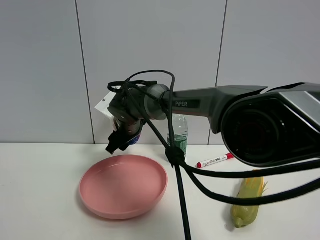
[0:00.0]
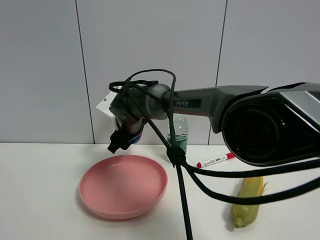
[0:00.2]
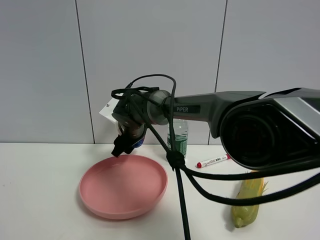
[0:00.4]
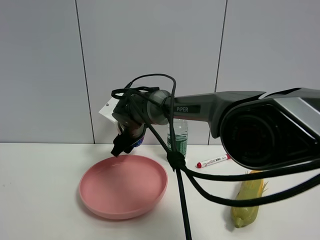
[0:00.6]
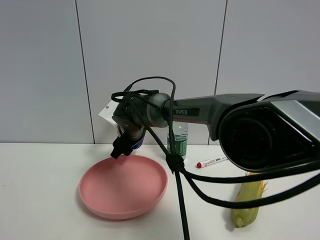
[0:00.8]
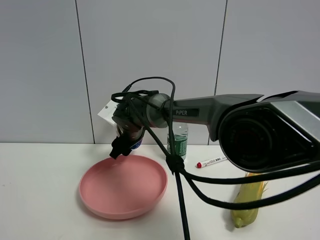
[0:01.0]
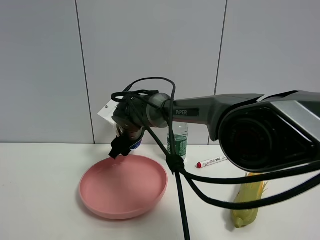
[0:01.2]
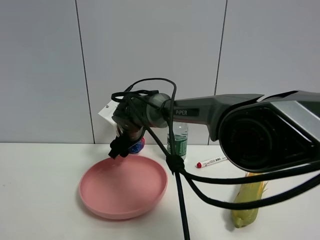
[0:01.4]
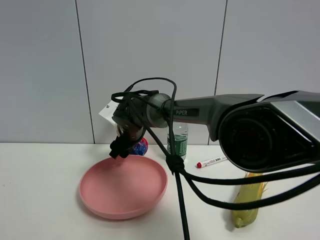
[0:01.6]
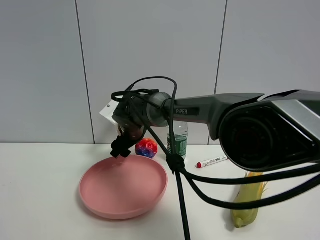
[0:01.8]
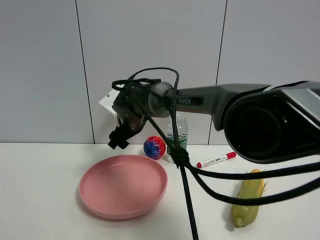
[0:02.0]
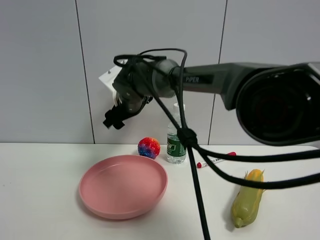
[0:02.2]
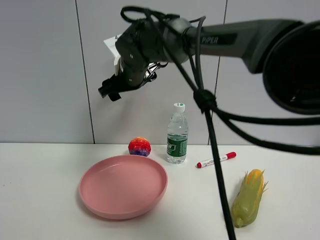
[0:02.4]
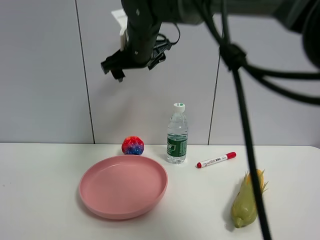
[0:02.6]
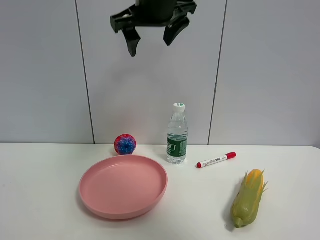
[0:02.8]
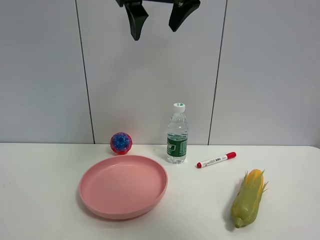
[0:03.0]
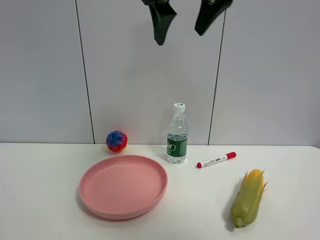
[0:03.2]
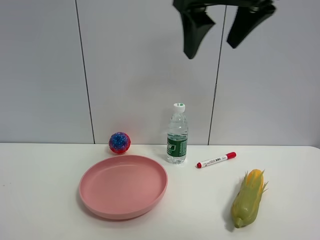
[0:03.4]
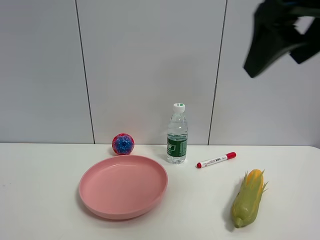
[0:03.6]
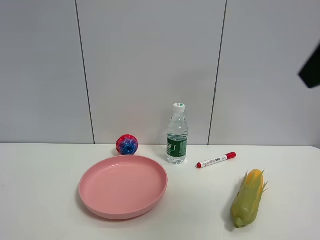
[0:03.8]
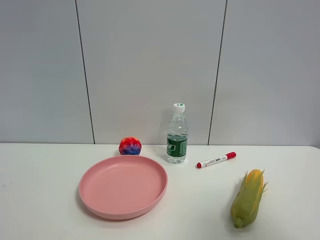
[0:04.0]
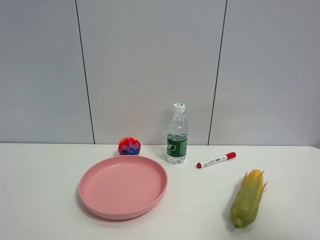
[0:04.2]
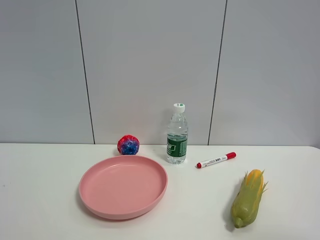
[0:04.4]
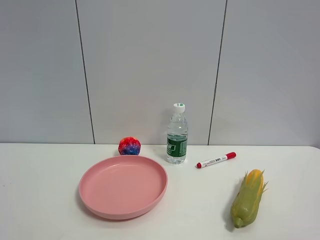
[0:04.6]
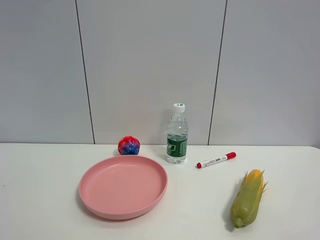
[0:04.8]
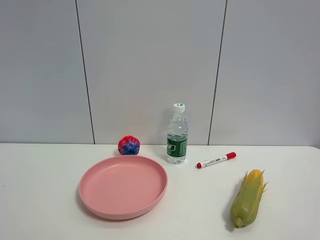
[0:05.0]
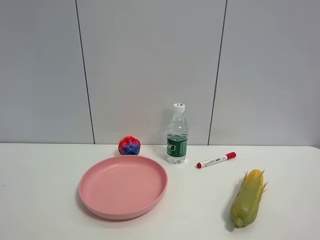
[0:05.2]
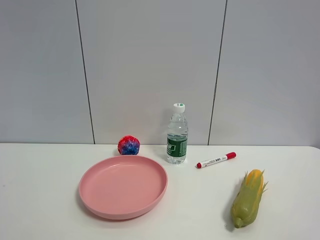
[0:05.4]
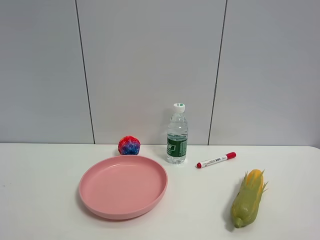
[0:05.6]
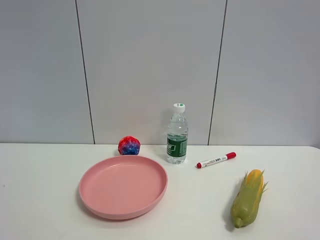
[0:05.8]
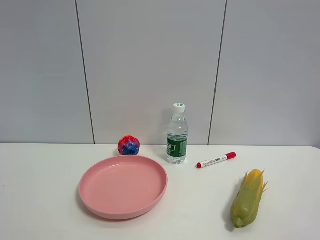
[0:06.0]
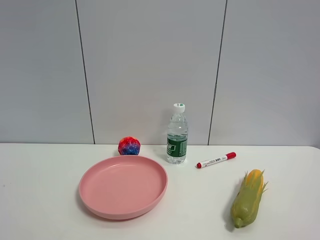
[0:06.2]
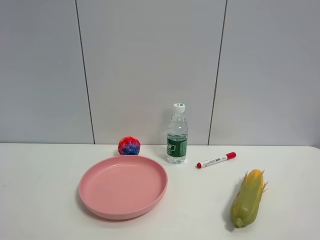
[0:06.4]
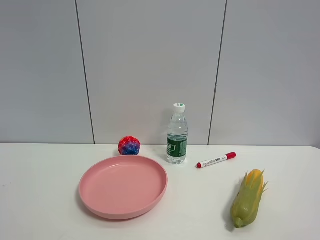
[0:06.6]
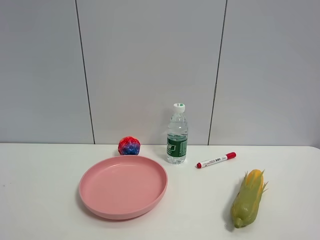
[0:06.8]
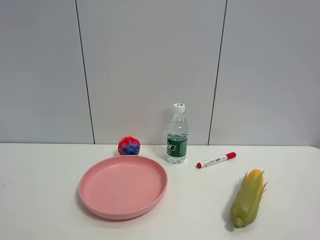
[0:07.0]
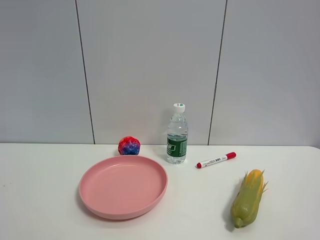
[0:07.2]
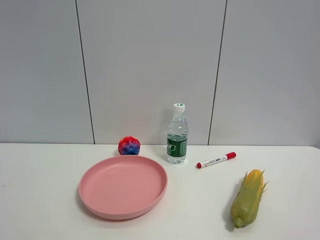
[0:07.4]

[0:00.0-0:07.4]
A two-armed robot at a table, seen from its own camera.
Task of the whole recording: the gripper move the object.
Step, 0:00.0 to 0:02.2: Place the colorful ball on the table with the right gripper.
0:00.0 to 0:01.4: The right gripper opens up.
0:01.4 to 0:03.0: The right gripper travels upward by about 30 cm.
0:03.0 to 0:04.4: The right gripper goes approximately 40 cm backward and to the right.
0:06.0 to 0:07.4: Both grippers stay about where they are.

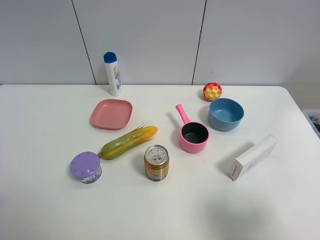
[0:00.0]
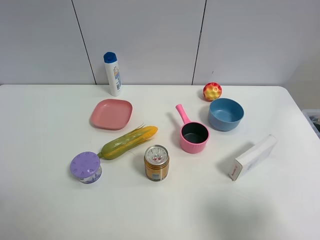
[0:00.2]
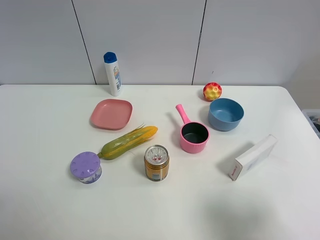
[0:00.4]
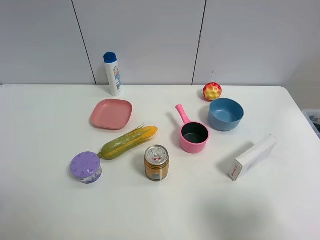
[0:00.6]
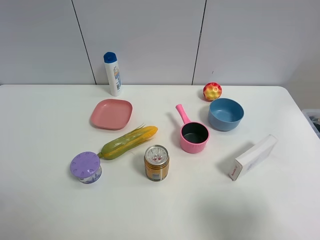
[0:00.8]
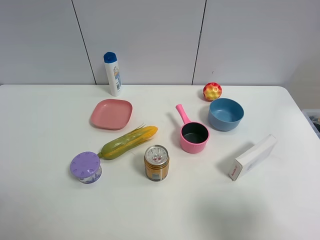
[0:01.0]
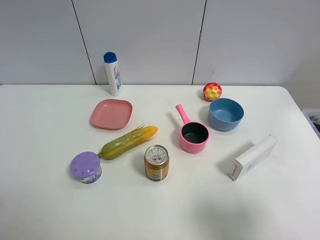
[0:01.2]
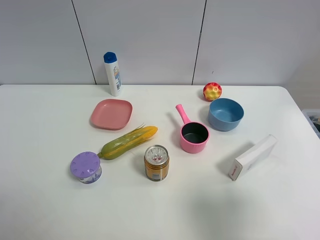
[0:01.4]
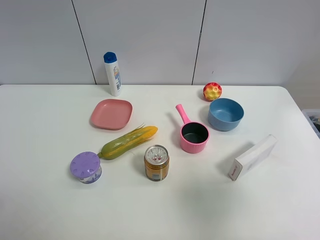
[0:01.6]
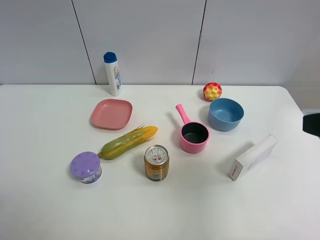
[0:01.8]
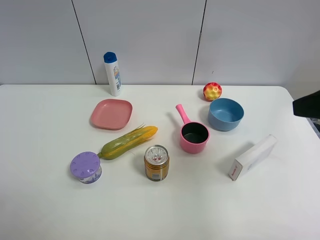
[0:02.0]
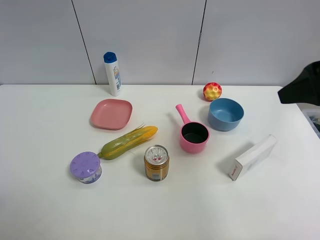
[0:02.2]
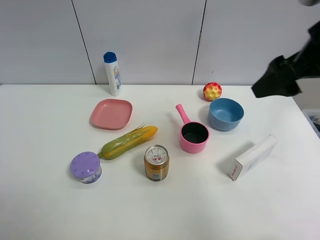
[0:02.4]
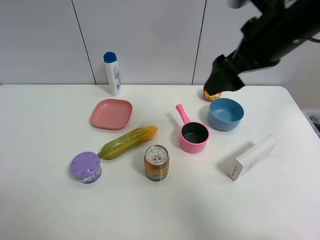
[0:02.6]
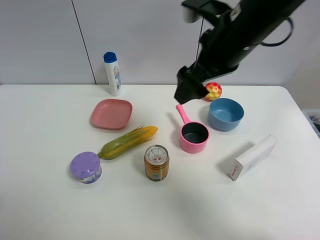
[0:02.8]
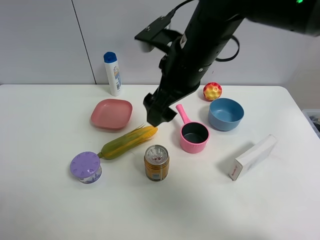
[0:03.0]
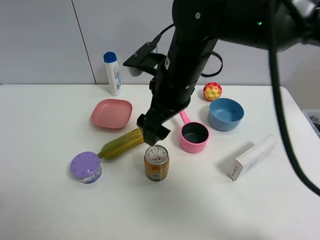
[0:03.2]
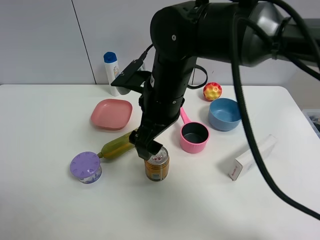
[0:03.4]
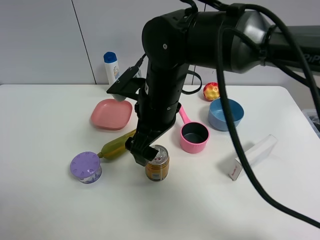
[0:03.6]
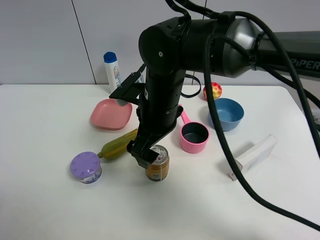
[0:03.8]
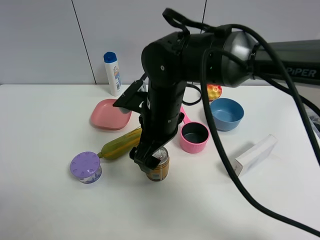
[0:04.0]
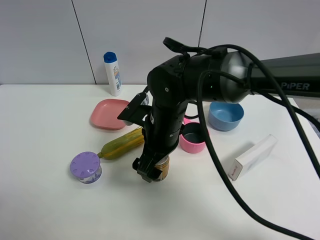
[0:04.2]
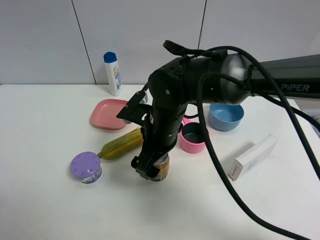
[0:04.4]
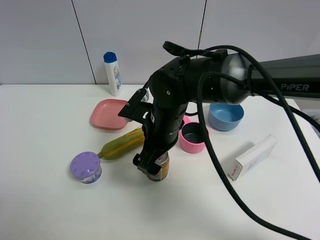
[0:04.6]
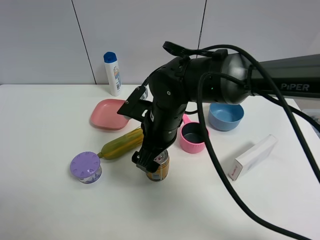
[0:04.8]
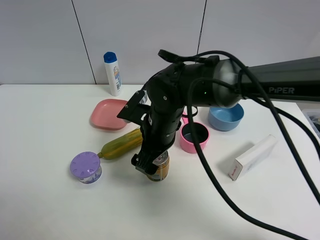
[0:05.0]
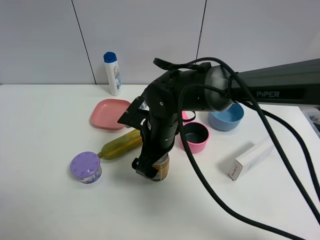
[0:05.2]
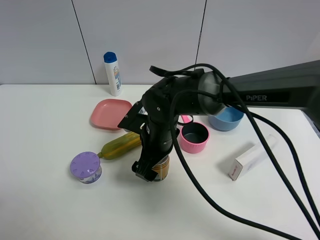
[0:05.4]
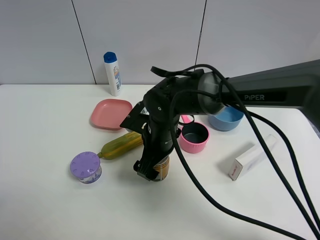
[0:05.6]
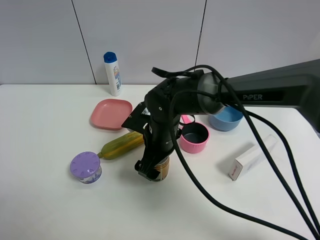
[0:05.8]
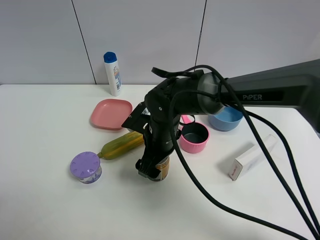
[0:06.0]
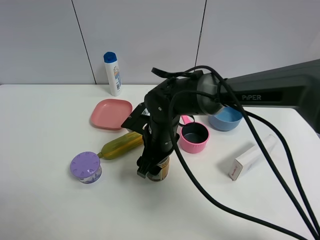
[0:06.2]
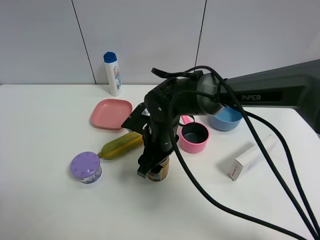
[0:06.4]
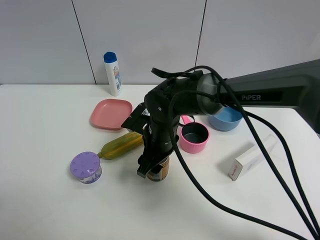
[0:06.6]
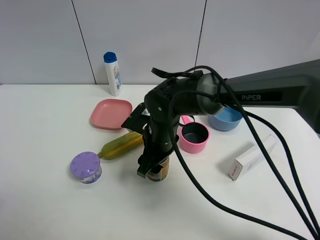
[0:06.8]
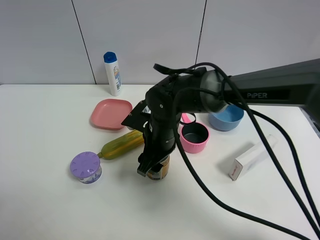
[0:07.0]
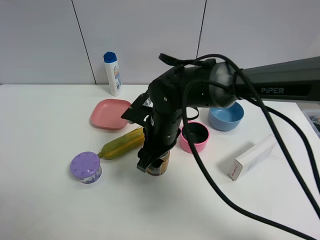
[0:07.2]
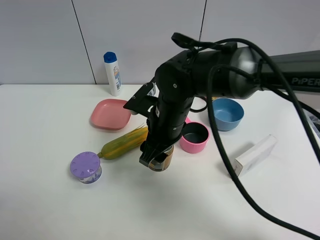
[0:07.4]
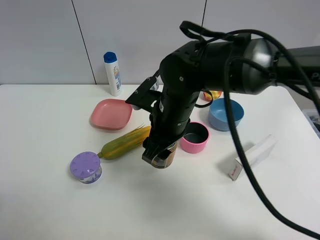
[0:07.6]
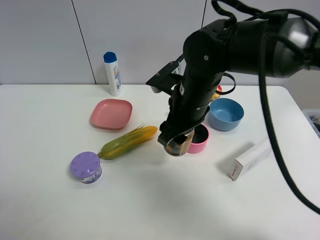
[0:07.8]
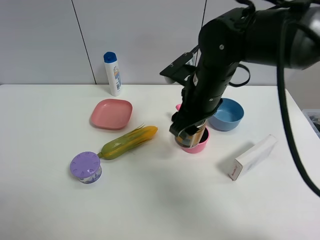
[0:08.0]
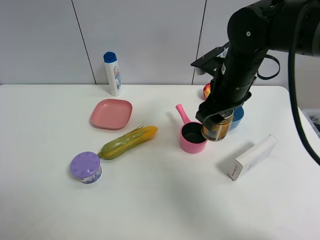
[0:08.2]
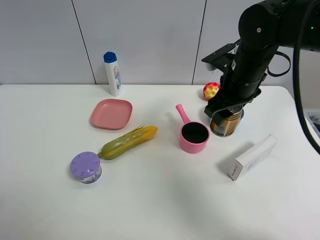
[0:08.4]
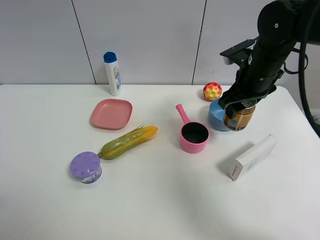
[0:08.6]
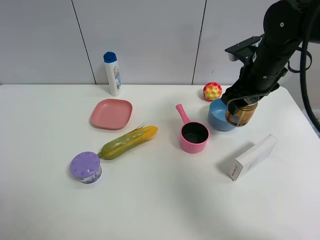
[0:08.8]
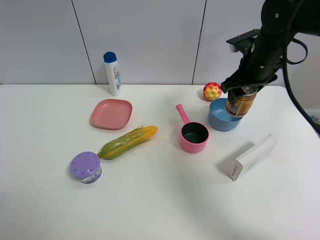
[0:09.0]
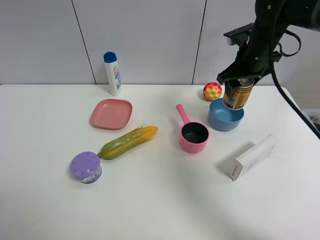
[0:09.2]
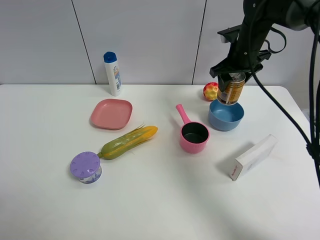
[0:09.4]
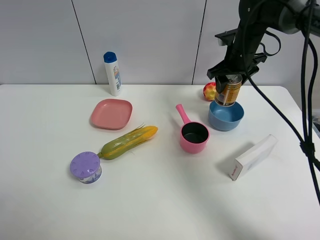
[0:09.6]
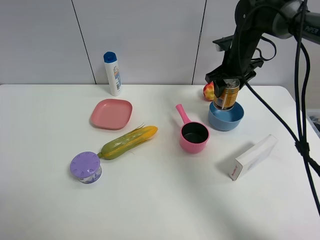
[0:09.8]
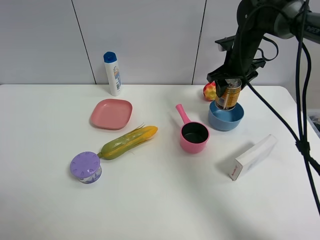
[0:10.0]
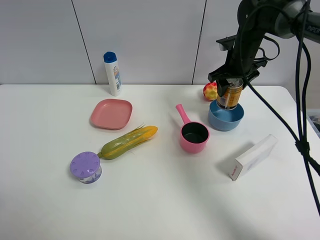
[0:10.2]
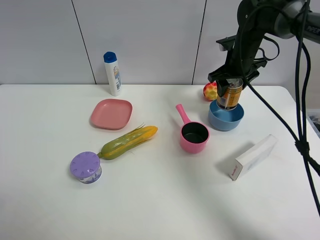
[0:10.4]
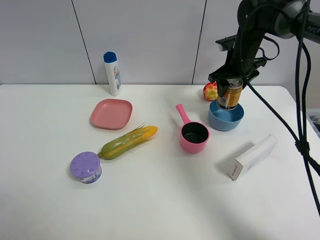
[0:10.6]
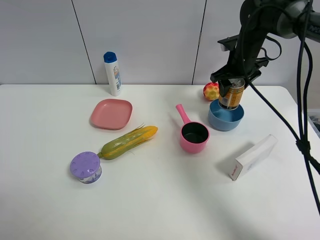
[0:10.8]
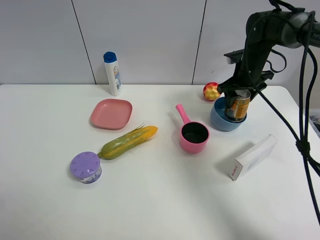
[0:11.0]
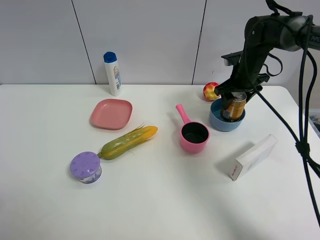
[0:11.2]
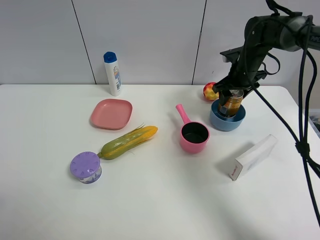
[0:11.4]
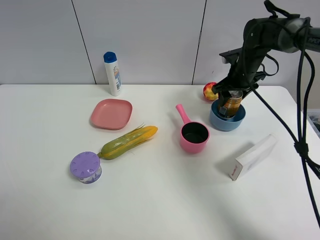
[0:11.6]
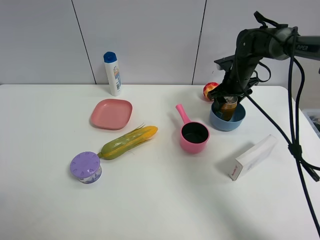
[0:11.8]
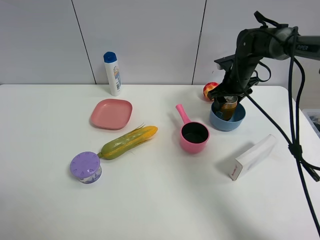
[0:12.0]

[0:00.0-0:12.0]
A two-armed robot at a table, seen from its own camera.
Task of the whole recording: the gripper move the object.
Step, 0:00.0 to 0:06.4: Grasp the red bull with the right gripper.
0:00.0 to 0:01.6: The right gripper goes roughly 5 cm upward.
0:01.6 to 0:03.0: The right gripper goes about 30 cm to the left and forward.
0:03.0 to 0:04.4: The right gripper moves downward, roughly 10 cm.
0:04.4 to 0:06.0: The right gripper shifts by roughly 5 cm.
0:06.0 to 0:07.6: The right gripper travels upward by approximately 10 cm, and closes.
0:07.6 to 0:09.0: The right gripper heads to the right and forward, covering roughly 20 cm.
0:09.0 to 0:10.4: The right gripper moves forward, about 10 cm.
0:10.4 to 0:12.0: The right gripper travels downward by approximately 5 cm.

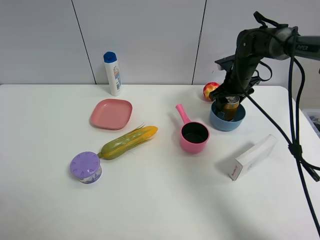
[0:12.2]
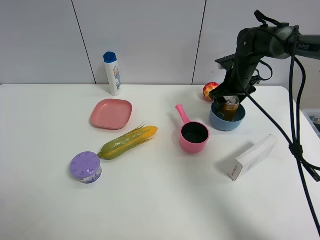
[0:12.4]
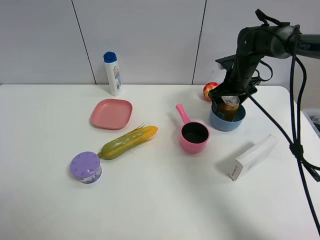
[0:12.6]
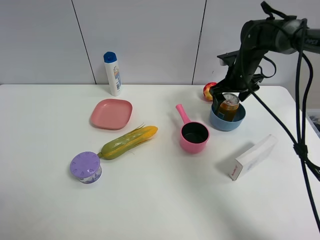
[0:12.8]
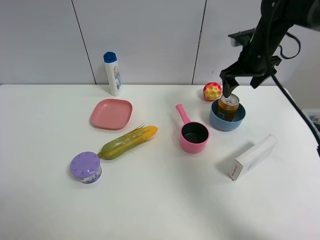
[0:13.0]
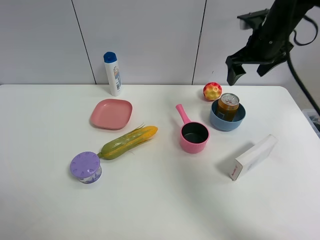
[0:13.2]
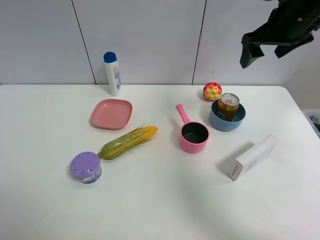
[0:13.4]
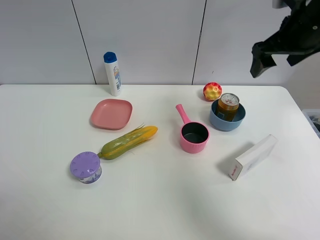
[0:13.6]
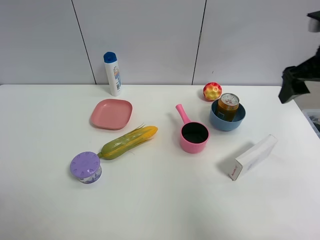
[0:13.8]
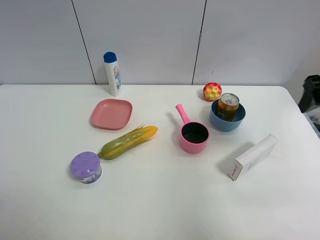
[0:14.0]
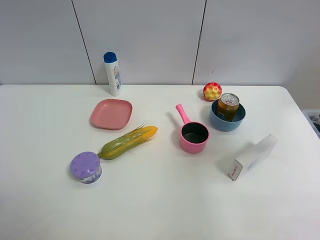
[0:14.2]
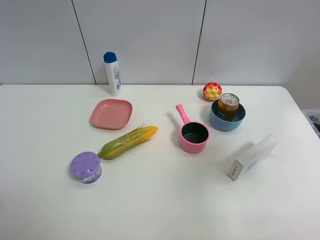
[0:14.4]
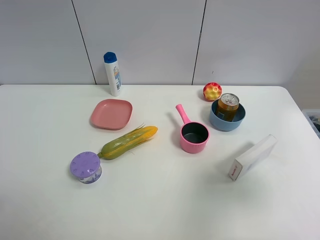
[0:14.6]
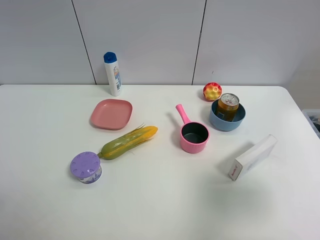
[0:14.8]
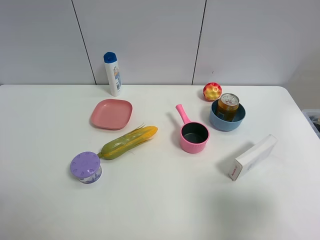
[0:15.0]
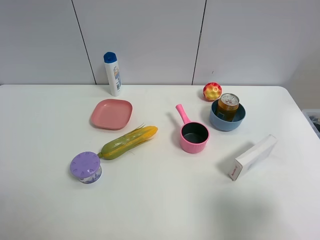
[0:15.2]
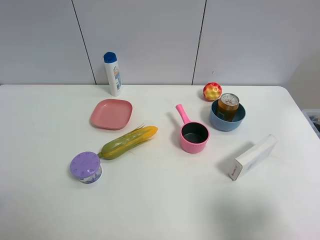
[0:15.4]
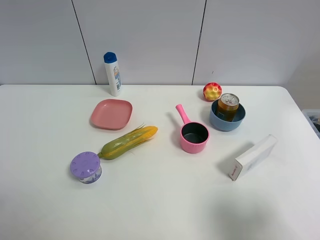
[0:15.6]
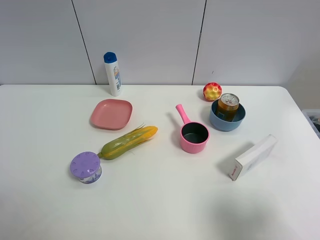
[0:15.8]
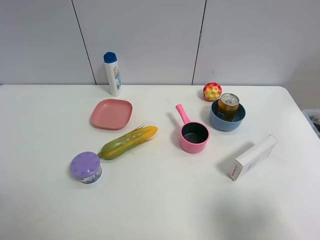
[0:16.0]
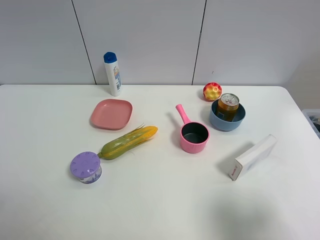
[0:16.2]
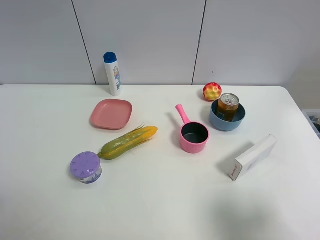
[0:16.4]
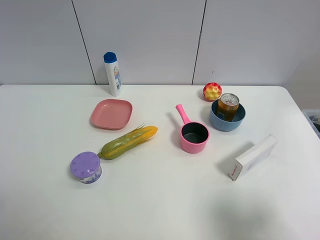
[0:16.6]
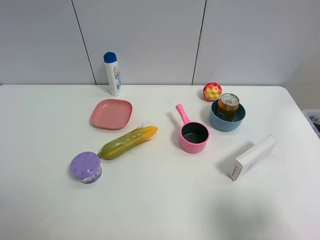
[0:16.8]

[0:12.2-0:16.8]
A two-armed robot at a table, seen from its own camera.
Task of the whole recording: the gripper move the object.
0:12.2 to 0:13.8: The right gripper moves backward and upward, about 25 cm, and opens.
0:13.8 to 0:15.2: The right gripper is displaced backward by about 25 cm.
